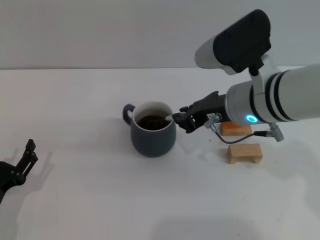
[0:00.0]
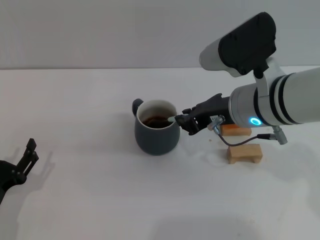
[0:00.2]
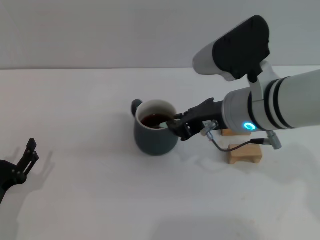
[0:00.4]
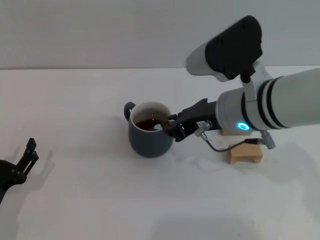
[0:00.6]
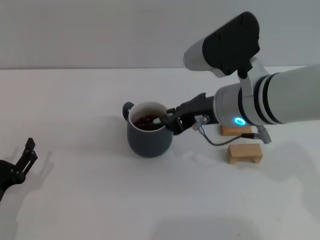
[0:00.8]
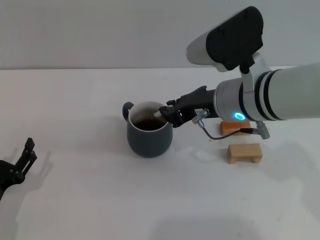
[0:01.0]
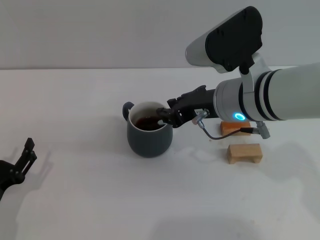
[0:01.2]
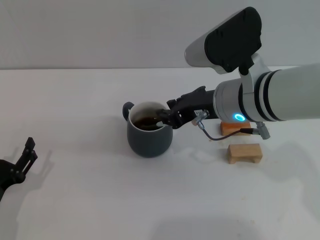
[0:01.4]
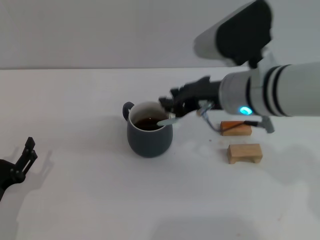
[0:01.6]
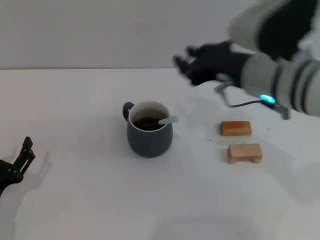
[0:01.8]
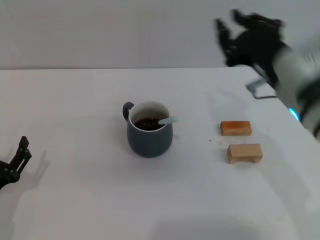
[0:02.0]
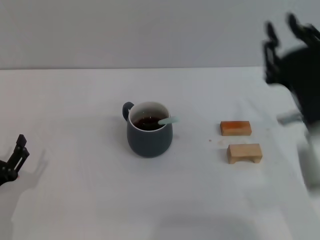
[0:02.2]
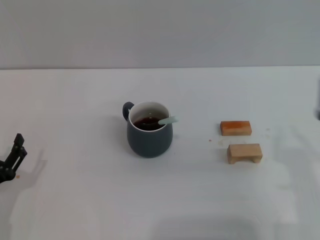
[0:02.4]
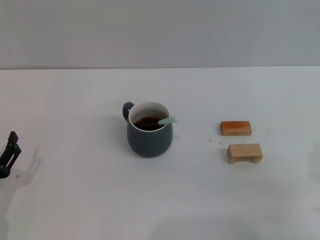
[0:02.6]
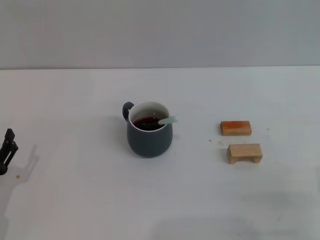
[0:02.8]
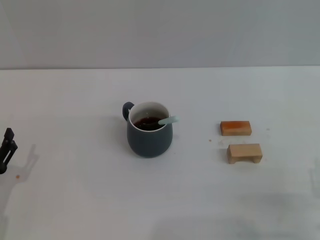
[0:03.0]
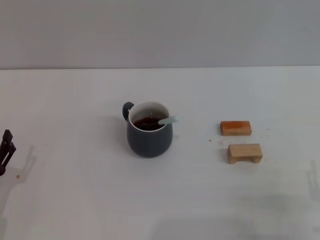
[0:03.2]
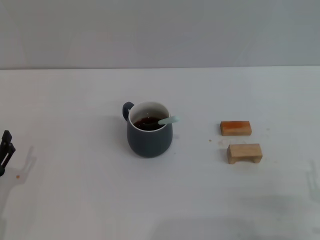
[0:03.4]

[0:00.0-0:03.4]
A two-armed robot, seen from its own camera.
Task of the whole recording: Move the grey cup to the center, lift the blue spoon, stir it three times in the cup, and put the spoon into the cup.
0:00.0 to 0:01.6: The grippers stay close to where they were, moving slightly.
0:01.6 to 0:03.4: The right gripper goes some 30 cm backward, downward and to the right, and opens its fingers.
